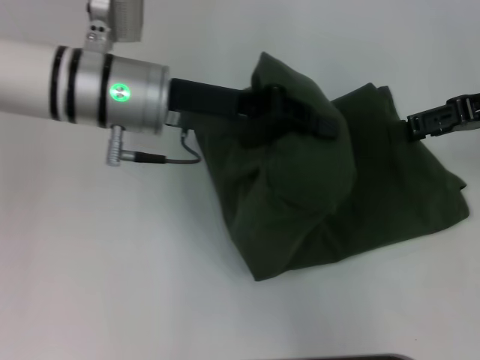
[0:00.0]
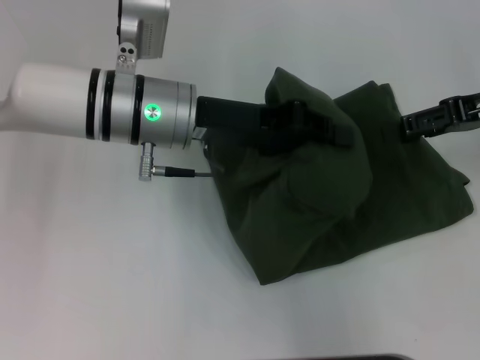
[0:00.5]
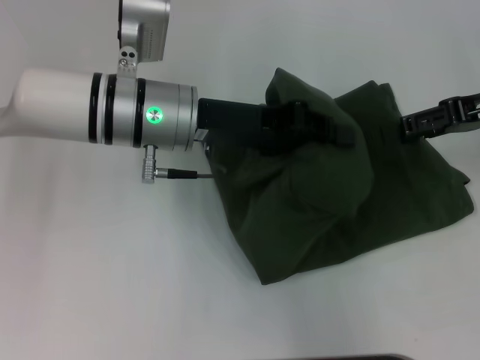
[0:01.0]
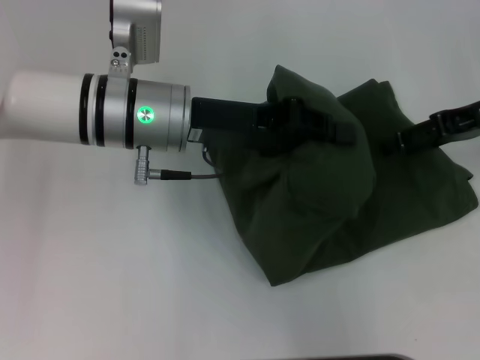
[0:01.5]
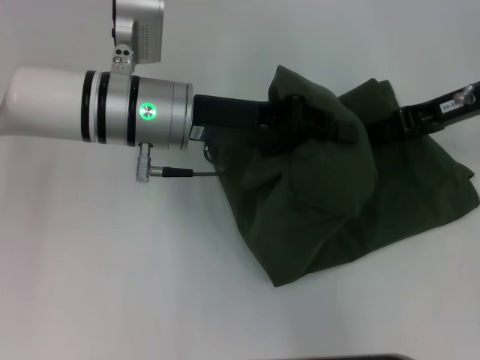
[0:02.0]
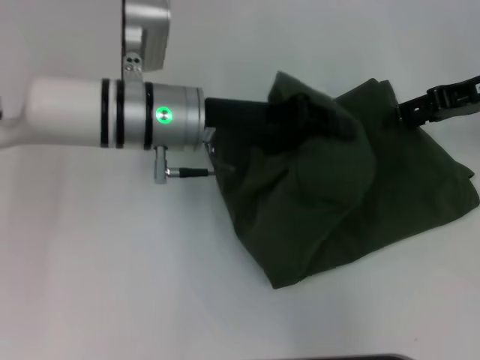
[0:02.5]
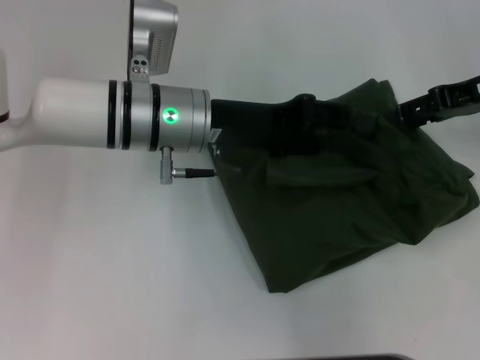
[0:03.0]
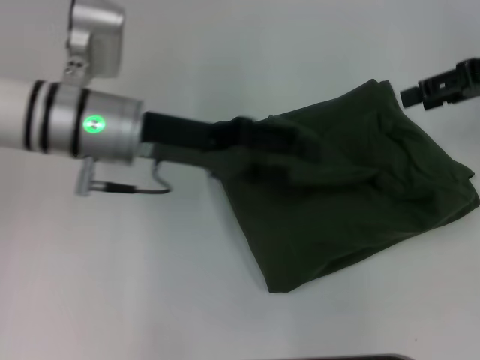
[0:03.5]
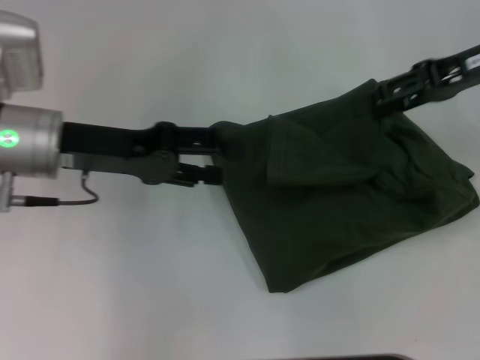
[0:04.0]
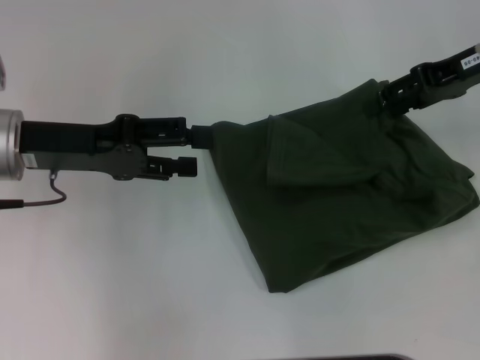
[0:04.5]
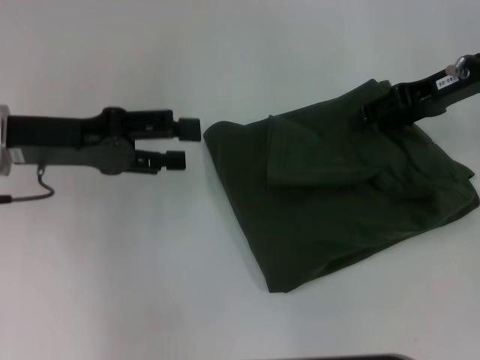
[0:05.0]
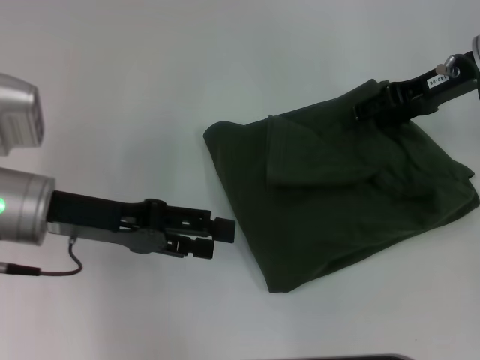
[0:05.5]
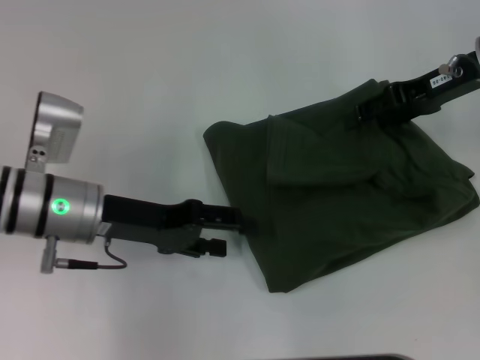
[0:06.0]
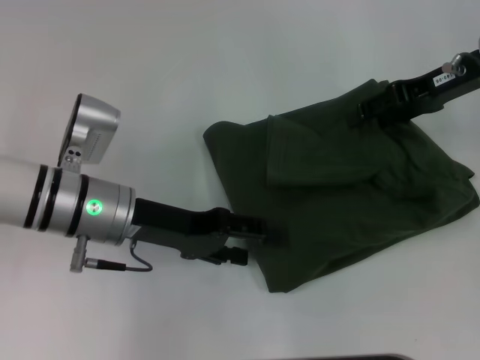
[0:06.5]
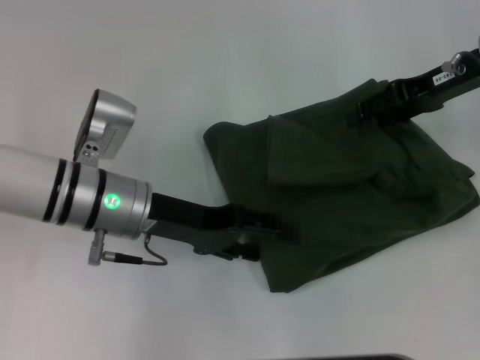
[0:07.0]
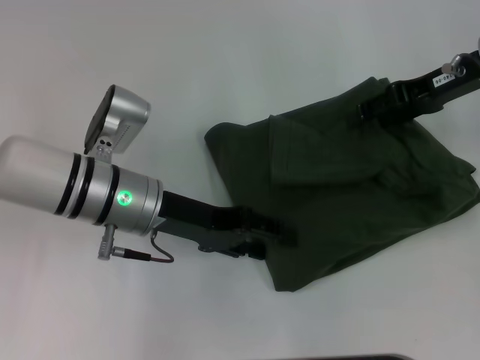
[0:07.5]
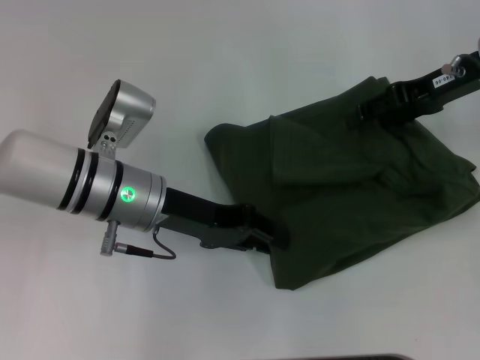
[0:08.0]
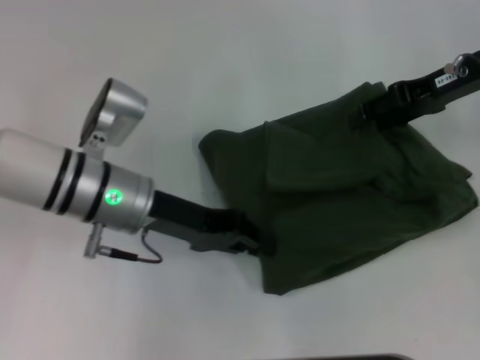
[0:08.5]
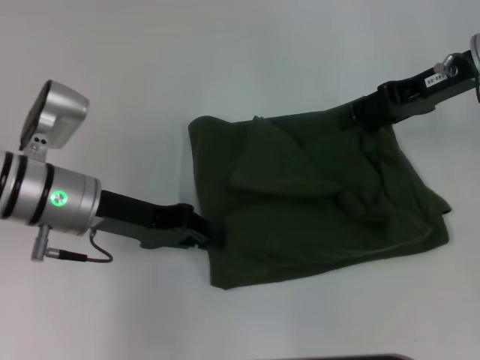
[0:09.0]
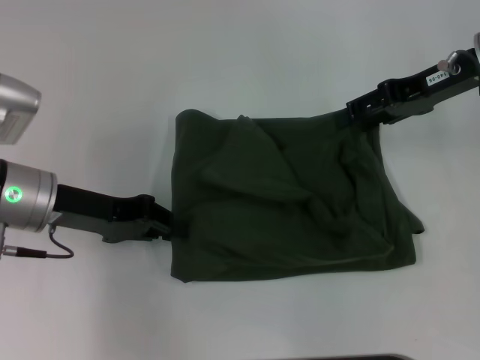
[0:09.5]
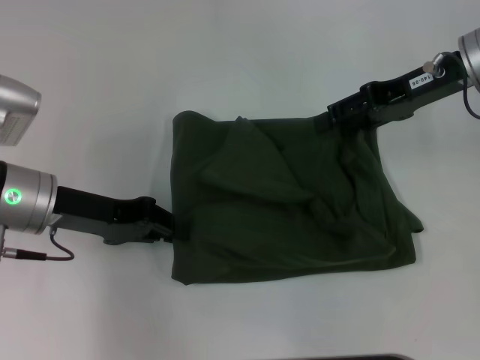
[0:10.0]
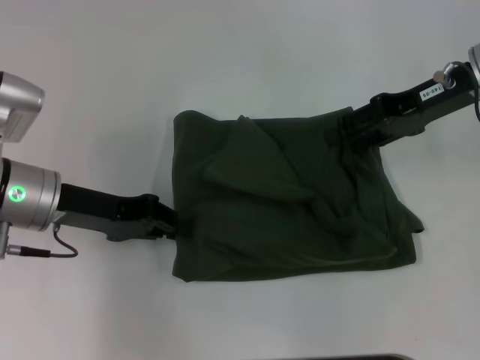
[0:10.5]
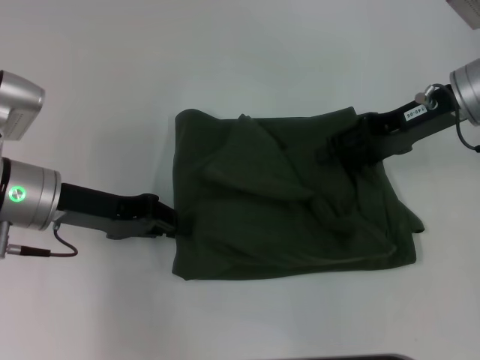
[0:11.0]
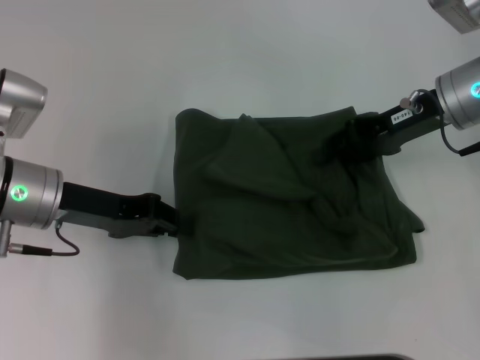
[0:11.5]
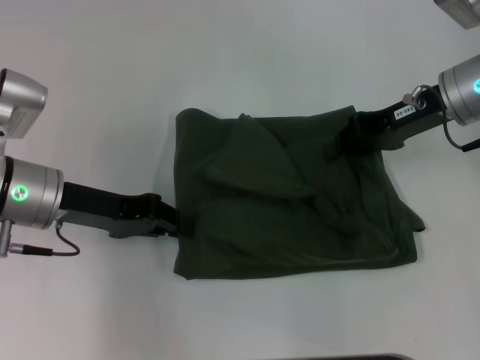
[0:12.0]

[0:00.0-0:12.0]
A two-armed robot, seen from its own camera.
Step, 0.0 to 3.0 s: Fold the clothes with your left hand.
0.0 to 2.0 s: The right gripper ends up roughly 5 cm from where it was.
2.0 to 4.0 s: The right gripper moves upward, roughly 5 cm. Meanwhile the left gripper goes roughly 10 cm to the left, and opens.
4.0 to 6.0 s: The left gripper moves downward, about 5 cm.
6.0 to 8.0 s: The left gripper heads to the right, covering some 5 cm, and closes.
8.0 to 10.0 s: The left gripper heads to the left, covering roughly 10 cm, and closes its fingers.
10.0 to 12.0 s: The right gripper closes its fingers.

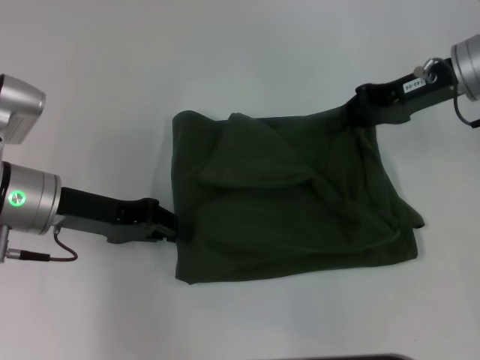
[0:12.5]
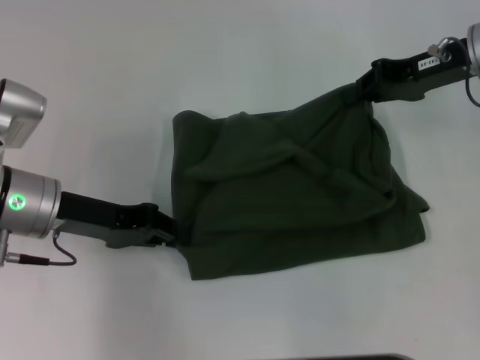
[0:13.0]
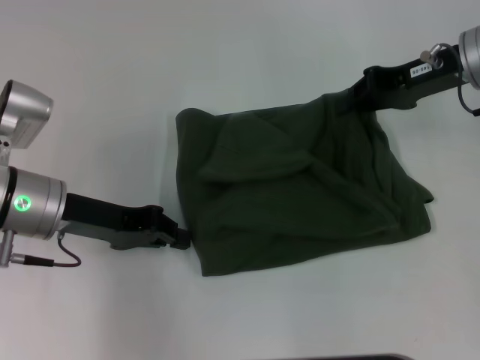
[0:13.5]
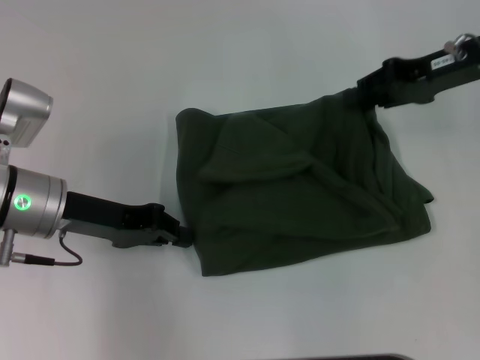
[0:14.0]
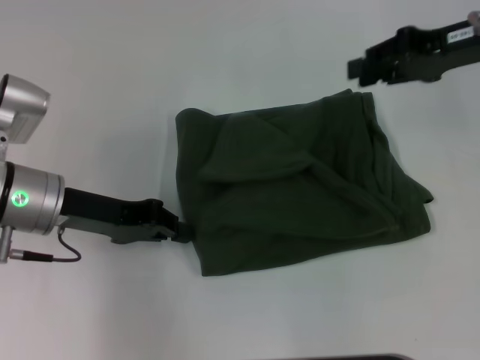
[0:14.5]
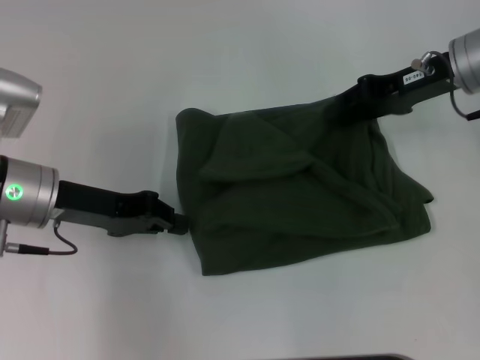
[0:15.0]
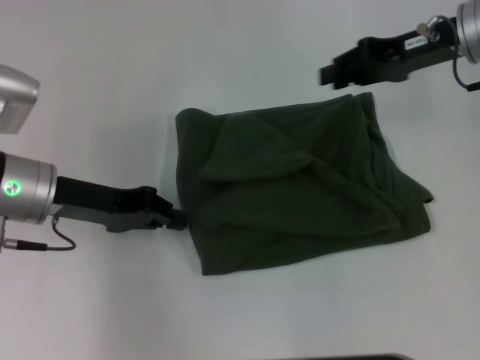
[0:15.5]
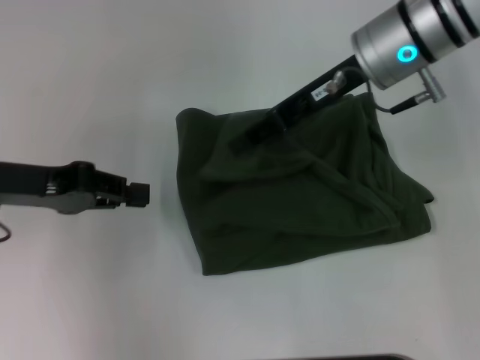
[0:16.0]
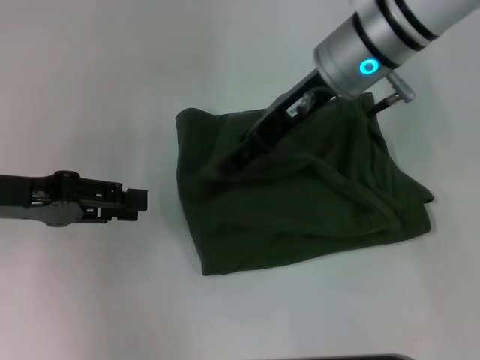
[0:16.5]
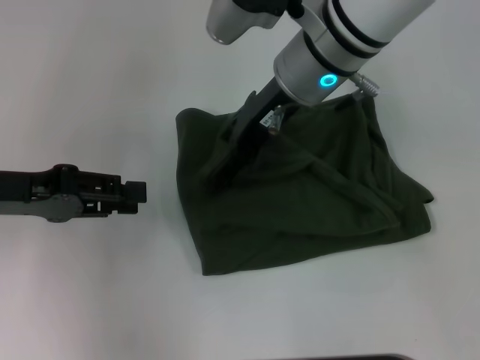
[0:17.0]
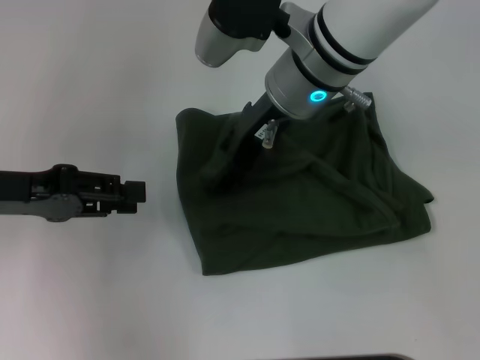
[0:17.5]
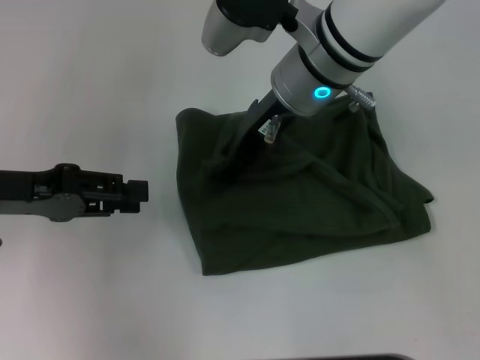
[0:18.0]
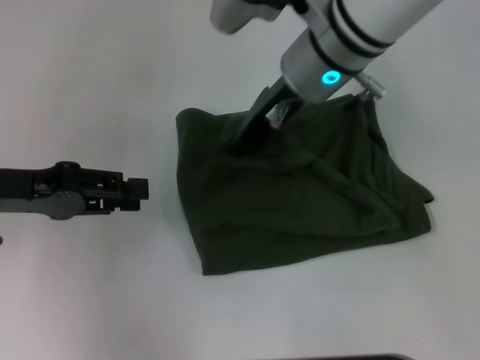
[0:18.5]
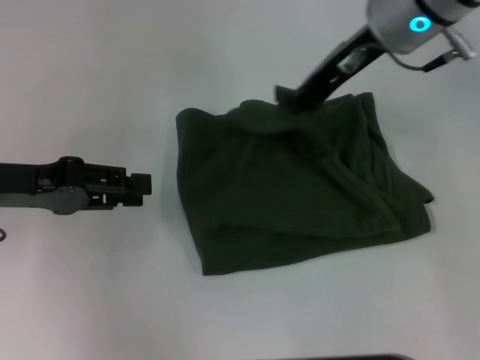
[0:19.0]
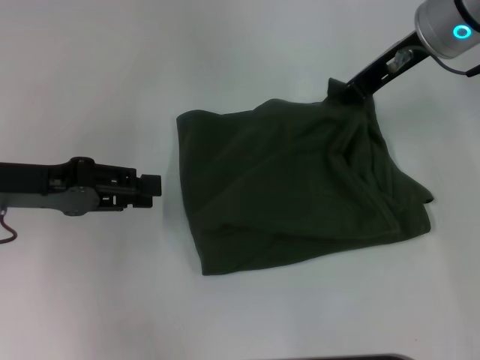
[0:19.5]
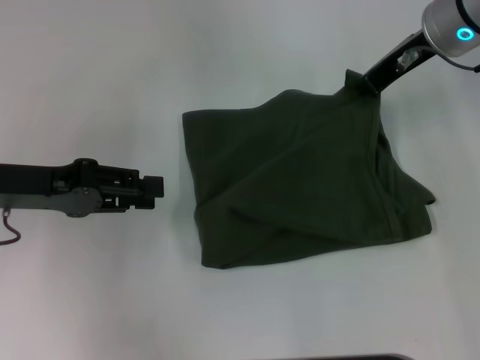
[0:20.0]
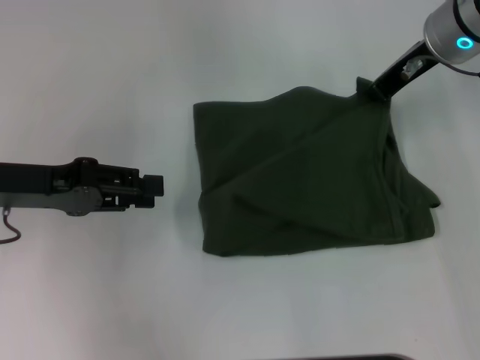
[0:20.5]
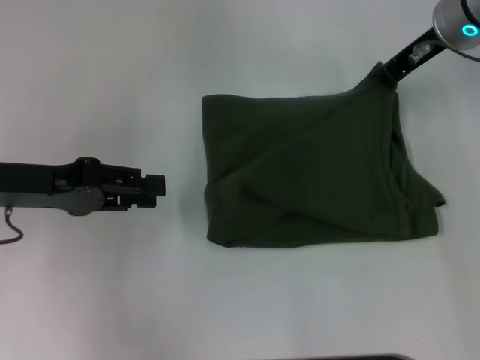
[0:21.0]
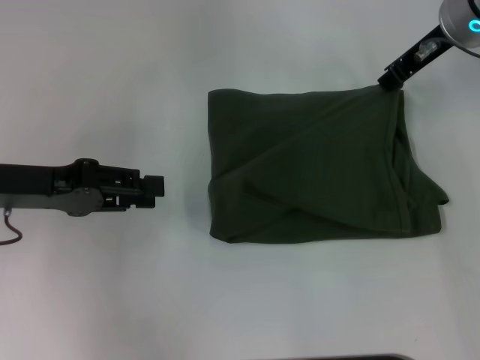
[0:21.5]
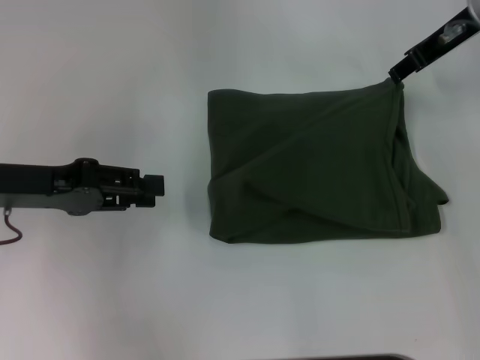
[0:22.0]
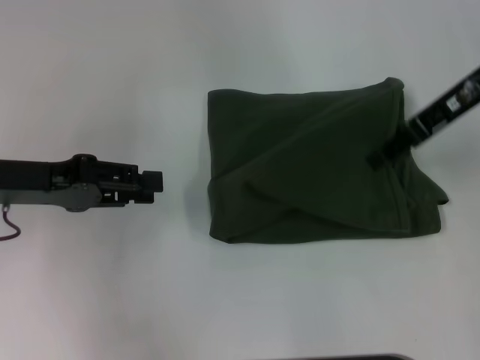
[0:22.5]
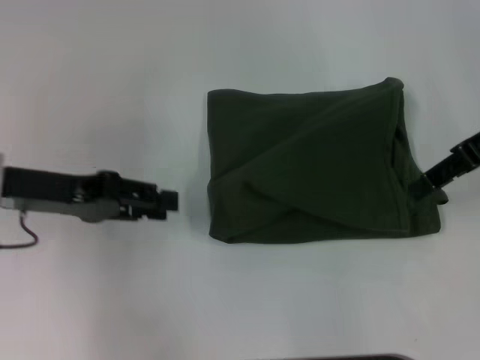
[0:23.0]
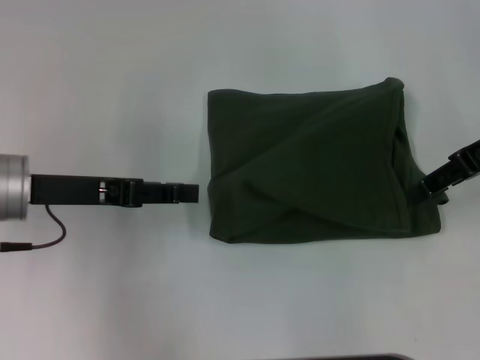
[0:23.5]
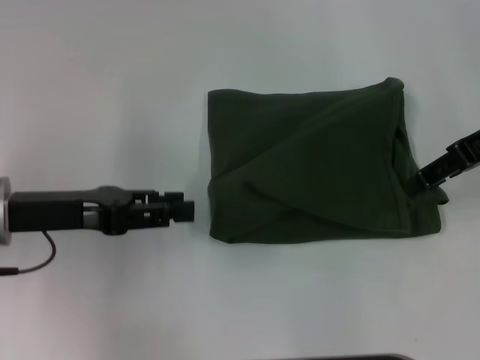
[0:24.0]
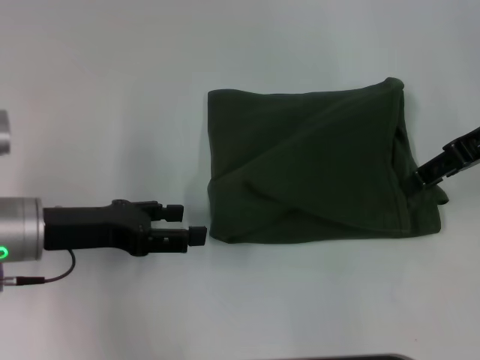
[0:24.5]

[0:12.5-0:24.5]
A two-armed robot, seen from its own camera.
12.5 to 14.5 s: The grippers stay close to where they were, moving slightly.
14.5 to 16.5 s: The right gripper is displaced to the left by about 15 cm, and opens up. Meanwhile the left gripper moves to the left, roughly 5 cm, and opens up.
16.5 to 18.5 s: The right gripper closes its fingers.
18.5 to 20.5 s: The right gripper travels to the right by some 10 cm.
20.5 to 22.5 s: The right gripper shifts by roughly 5 cm, and opens up.
22.5 to 24.5 s: The left gripper moves downward, about 5 cm, and opens. Meanwhile the right gripper ends up some 5 cm from where it was.

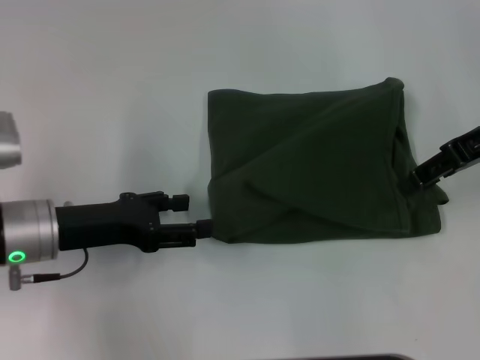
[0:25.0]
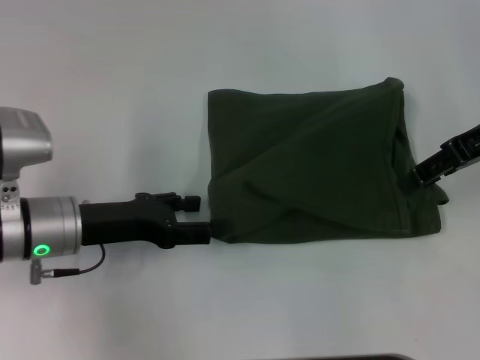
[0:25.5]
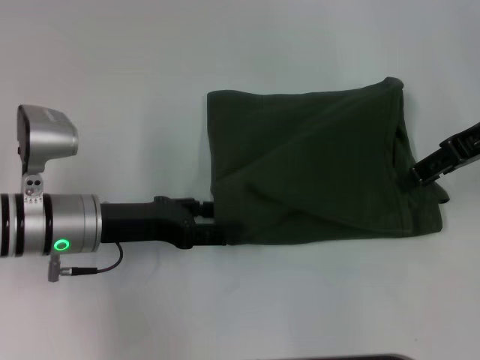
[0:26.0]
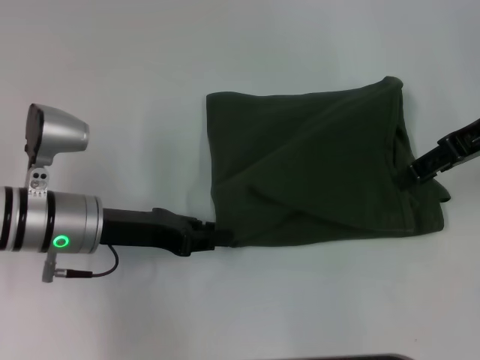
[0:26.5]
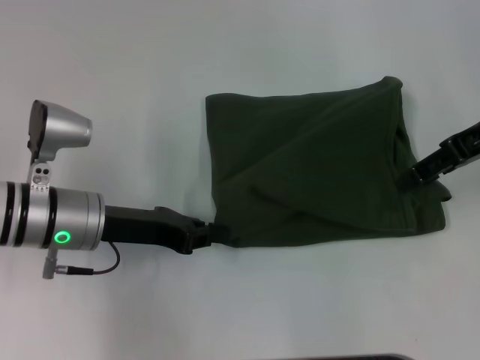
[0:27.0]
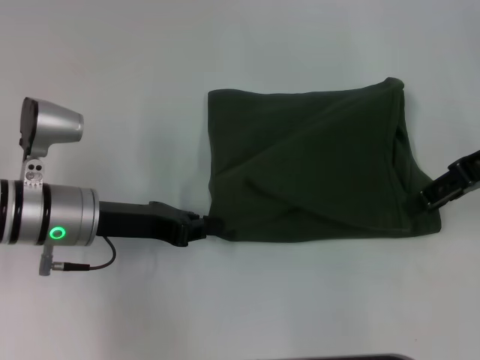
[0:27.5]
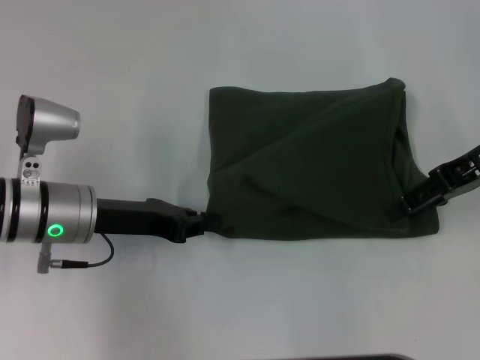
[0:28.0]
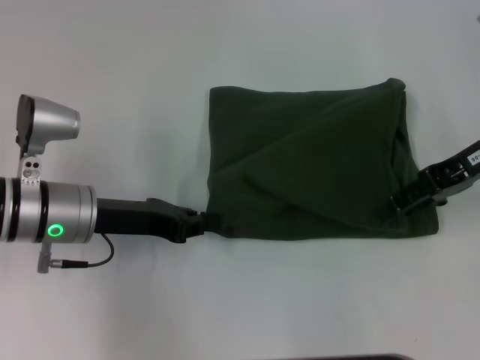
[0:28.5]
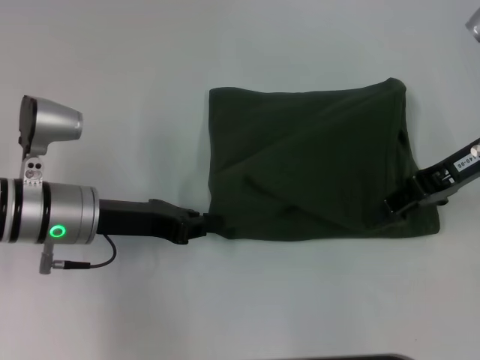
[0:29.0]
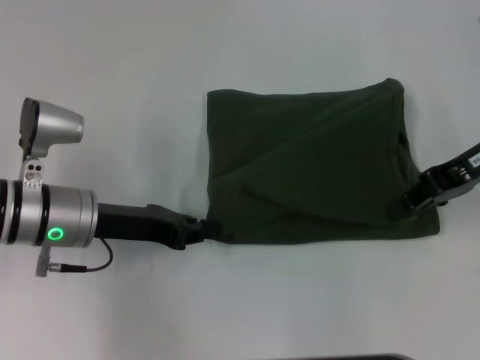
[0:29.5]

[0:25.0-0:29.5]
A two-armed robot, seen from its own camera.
25.0 to 27.0 s: The left gripper closes.
27.0 to 29.5 s: The right gripper closes.
